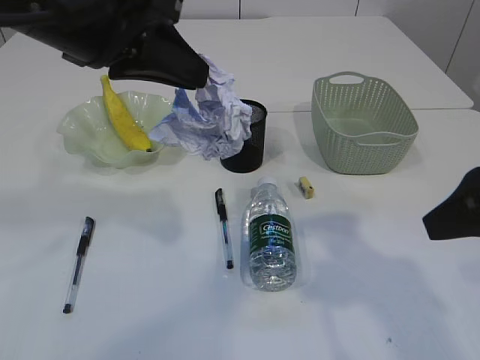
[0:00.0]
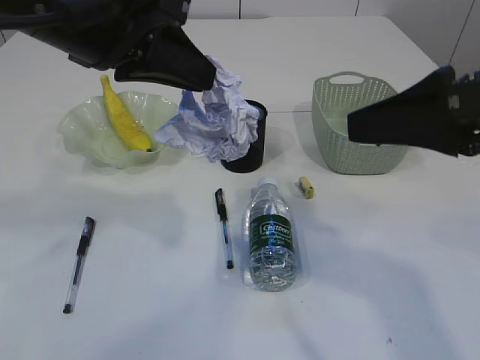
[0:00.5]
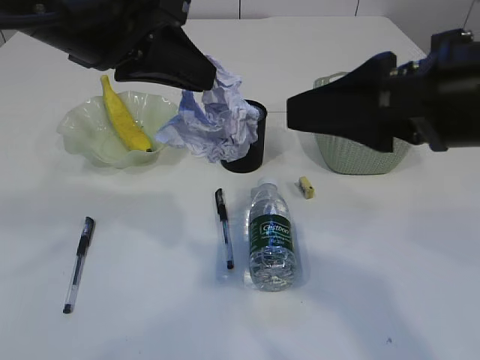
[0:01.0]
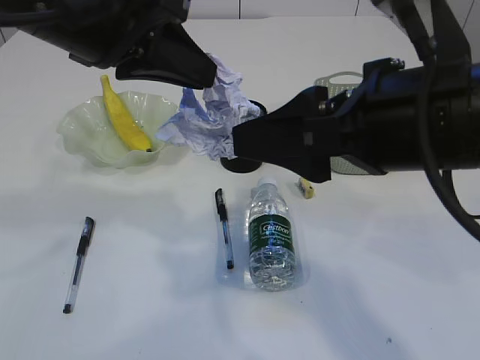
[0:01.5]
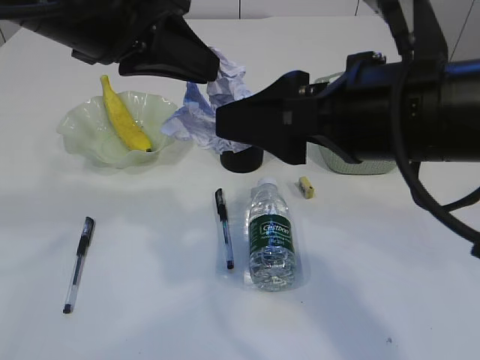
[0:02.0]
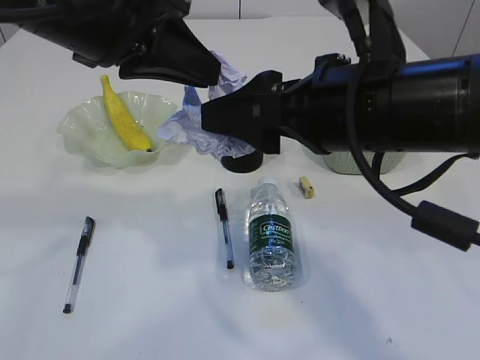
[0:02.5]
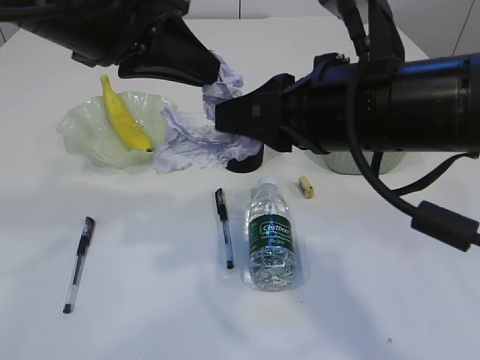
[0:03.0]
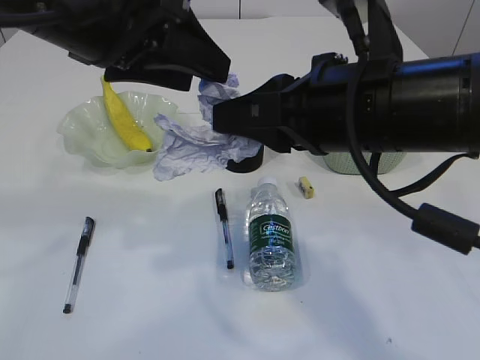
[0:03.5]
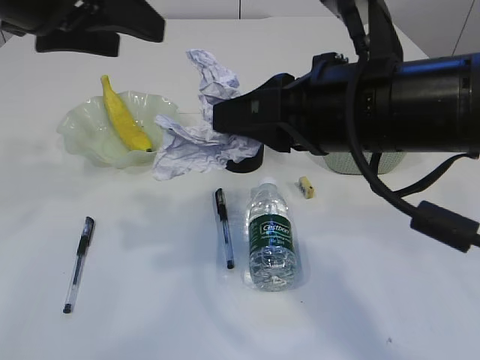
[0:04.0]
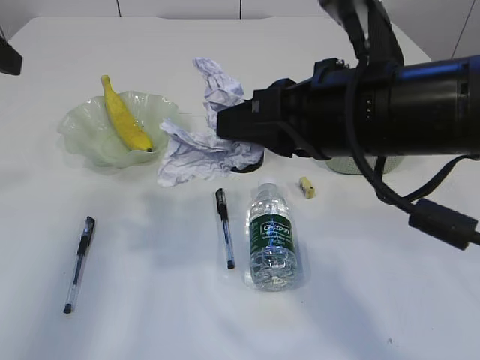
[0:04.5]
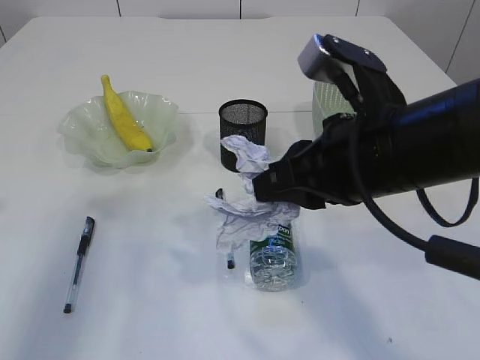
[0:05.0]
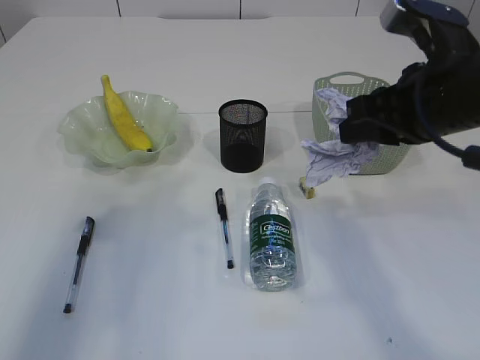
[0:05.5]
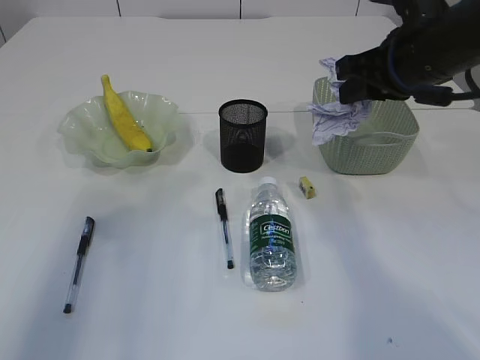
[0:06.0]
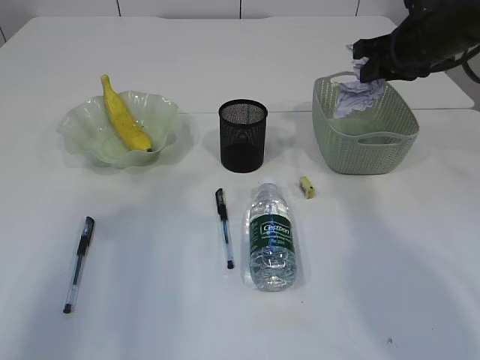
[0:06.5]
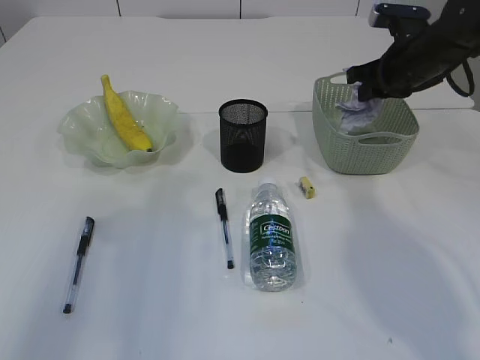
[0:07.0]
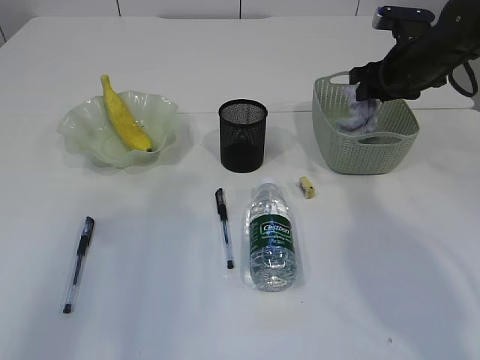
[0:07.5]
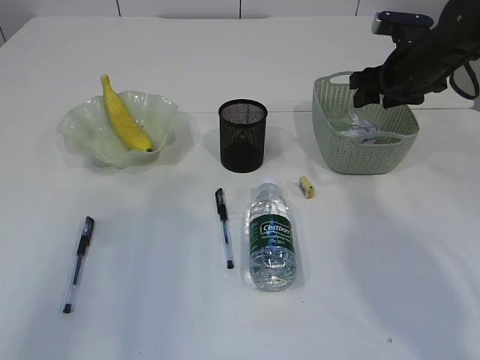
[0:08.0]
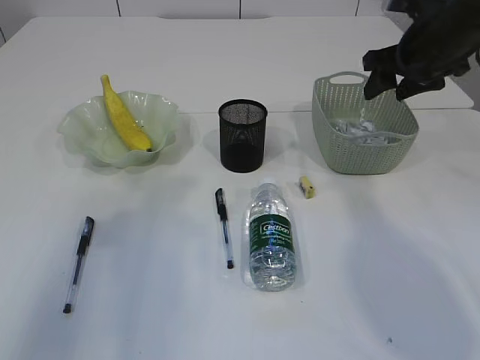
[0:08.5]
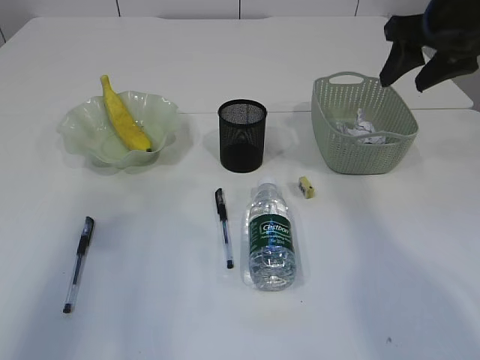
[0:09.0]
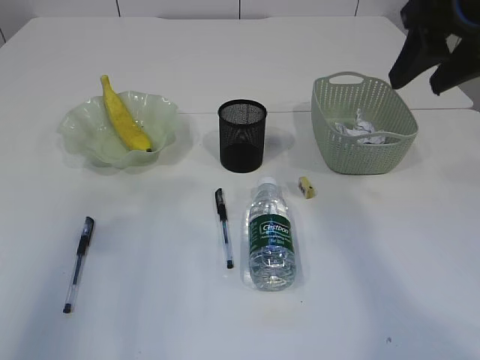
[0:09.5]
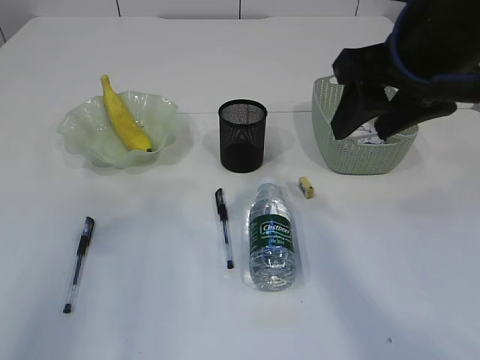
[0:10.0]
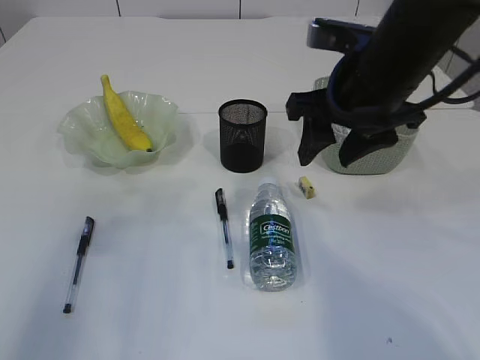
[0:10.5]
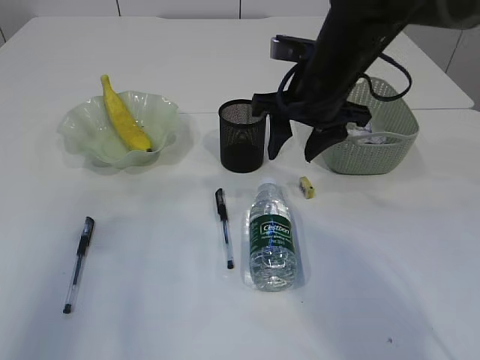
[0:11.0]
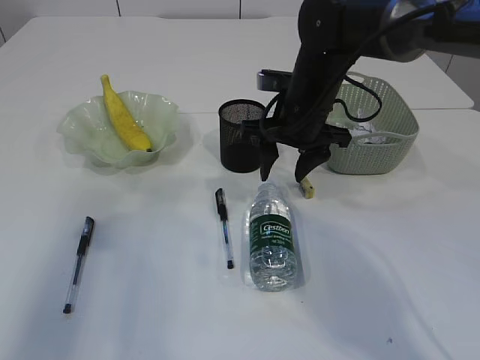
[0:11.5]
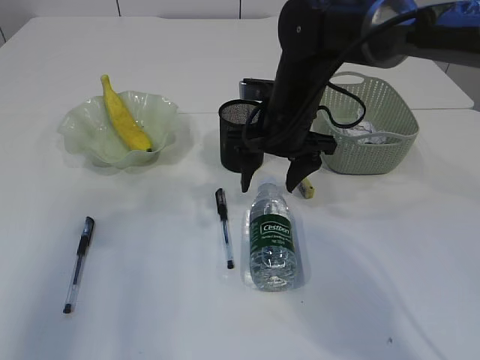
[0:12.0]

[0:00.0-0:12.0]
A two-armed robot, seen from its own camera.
Step, 0:00.0 to 0:04.0: Hand over the waste paper.
Step, 0:04.5 to 0:08.5: Place the waste paper in the basket.
0:00.0 to 0:02.0: The right gripper travels to the left by some 10 cm.
0:02.0 to 0:04.0: The left gripper goes about 5 cm to the left, and opens; the right gripper closes its fingers.
0:04.0 to 0:06.0: The left gripper shifts approximately 15 cm to the left and backward; the right gripper shifts some 15 cm forward and to the right.
0:06.0 to 0:08.0: The right gripper travels forward, downward and to the right by approximately 15 cm, and opens.
0:08.0 to 0:10.0: The right gripper shifts about 25 cm backward, upward and to the left.
0:10.0 to 0:12.0: The right gripper moves downward, forward and to the left, some 20 cm.

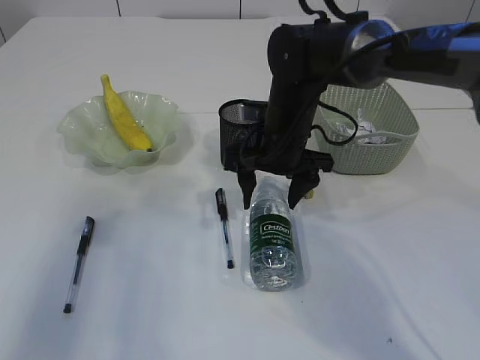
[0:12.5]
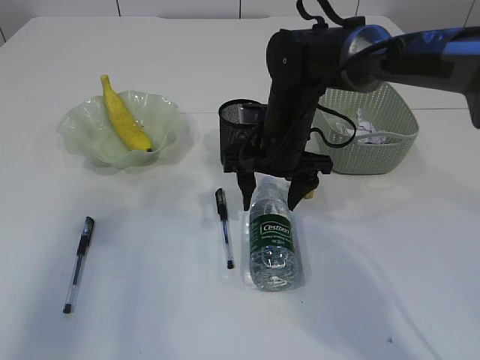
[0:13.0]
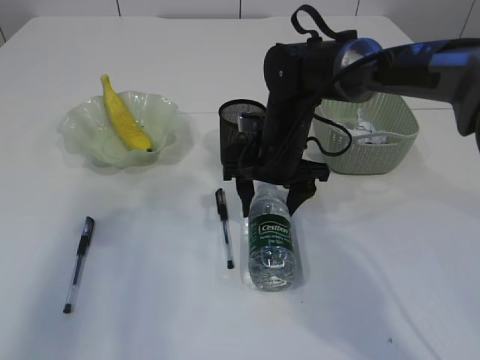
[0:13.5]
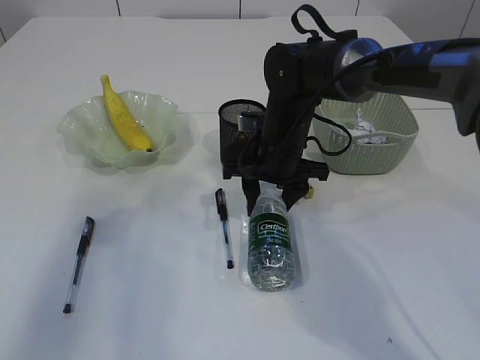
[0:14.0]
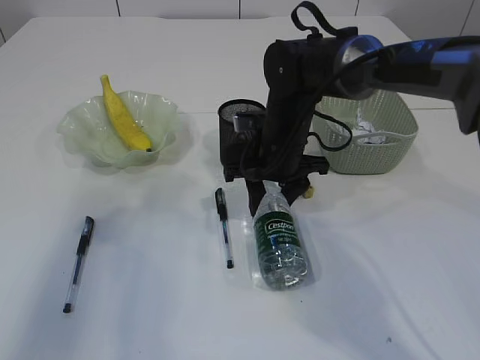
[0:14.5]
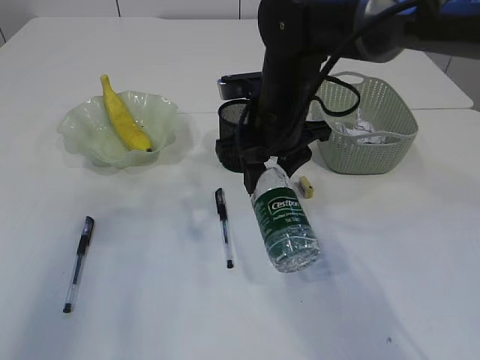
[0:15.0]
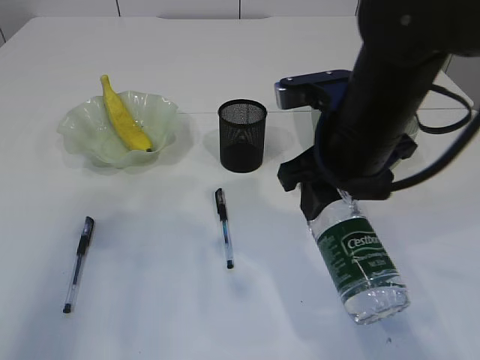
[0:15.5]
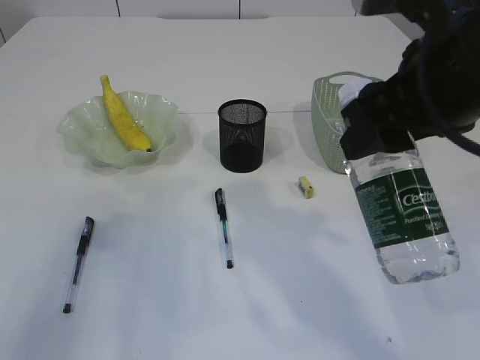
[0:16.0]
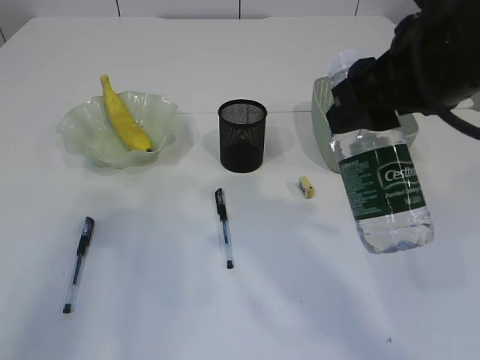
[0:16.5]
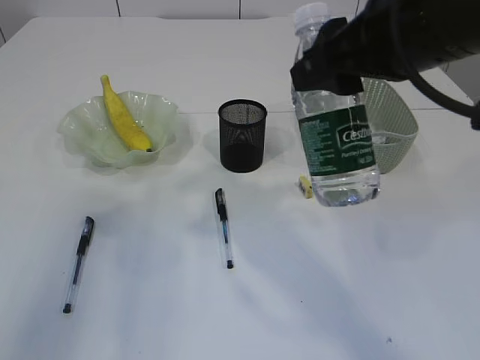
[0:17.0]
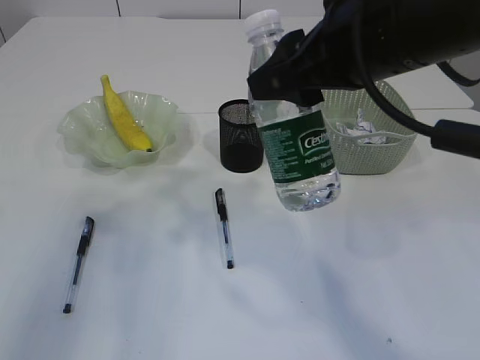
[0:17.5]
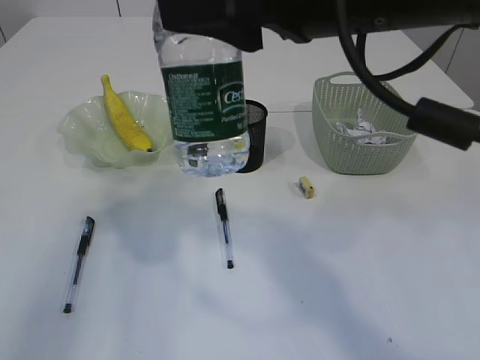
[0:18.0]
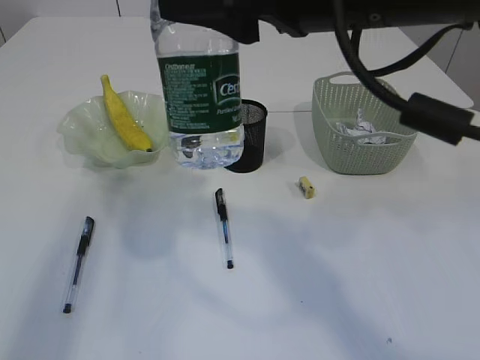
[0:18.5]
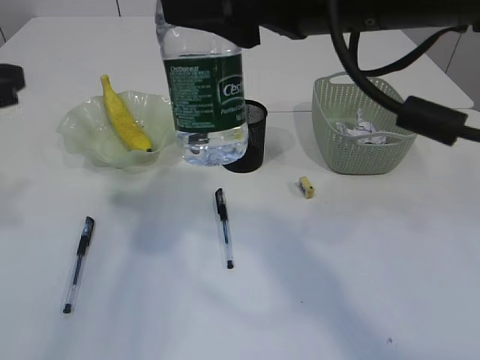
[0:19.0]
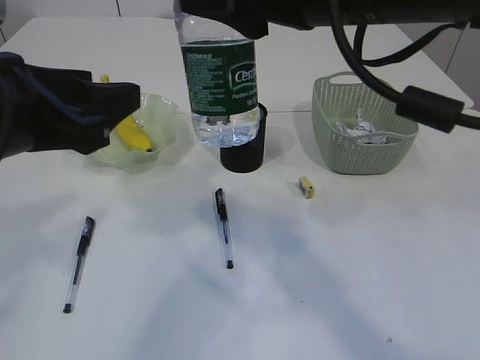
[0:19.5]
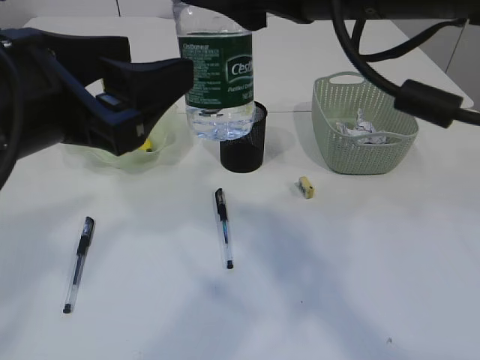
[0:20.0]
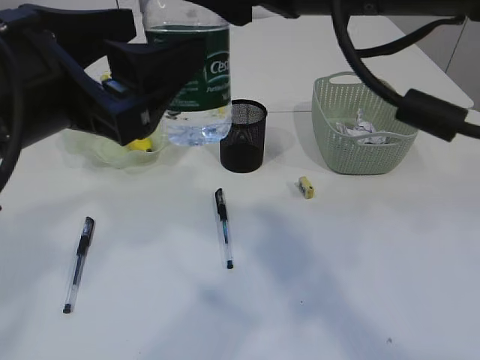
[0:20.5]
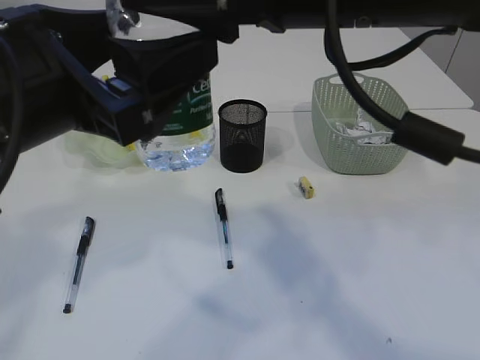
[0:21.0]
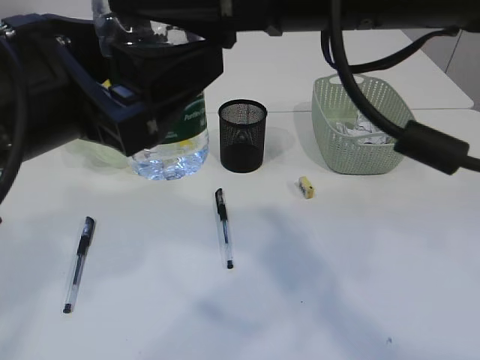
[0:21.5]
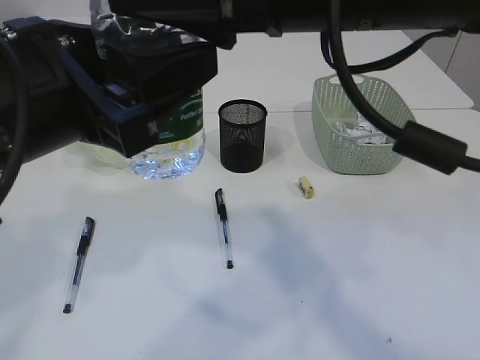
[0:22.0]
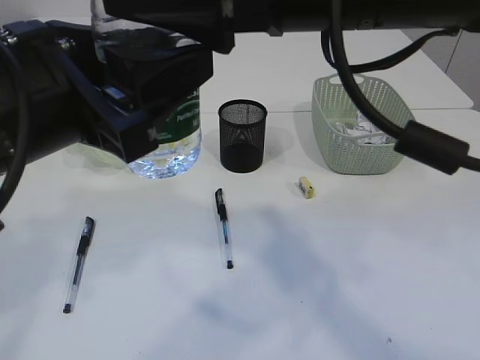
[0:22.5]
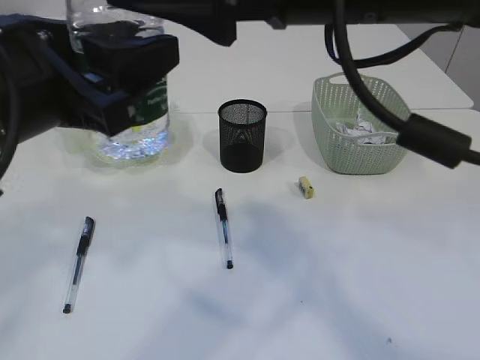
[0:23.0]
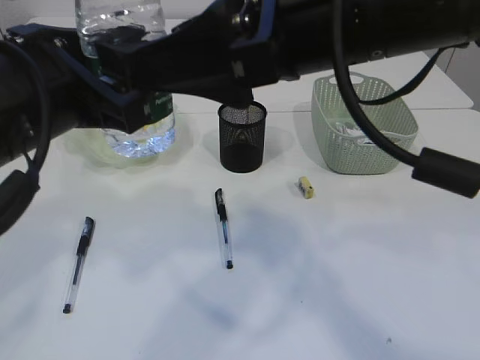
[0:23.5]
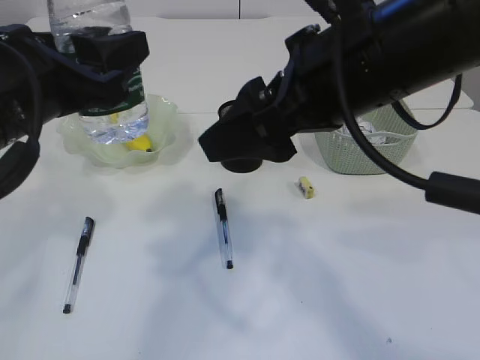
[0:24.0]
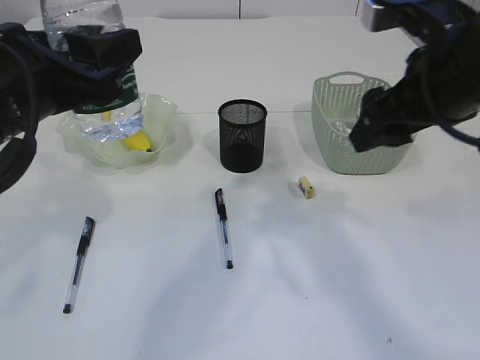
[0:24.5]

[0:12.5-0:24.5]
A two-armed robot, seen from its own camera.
Step, 0:12.5 to 0:15.5: Pick up the bottle with the right arm.
Step, 0:16.0 to 0:23.5: transfer the bottle to the left arm.
0:12.5 to 0:14.5: The right gripper closes.
0:14.5 to 0:16.5: The right gripper shifts roughly 25 cm upward, backward and to the right.
0:16.5 to 0:18.5: The right gripper is displaced to the left by roughly 5 cm.
0:18.5 to 0:20.5: The left gripper shifts some 20 cm to the right and backward, and opens its fingers.
0:20.5 to 0:22.5: The grippers stay close to where they were, moving slightly.
0:22.5 to 0:24.5: The right gripper goes about 15 cm to the right and downward. Meanwhile the left gripper heads forward, covering some 5 cm.

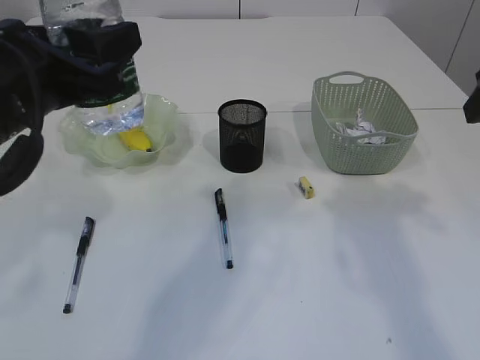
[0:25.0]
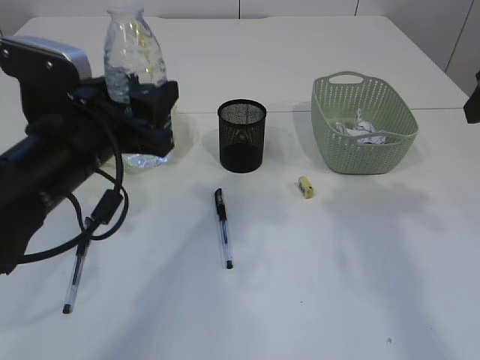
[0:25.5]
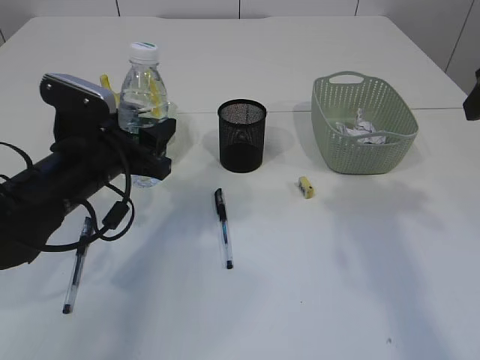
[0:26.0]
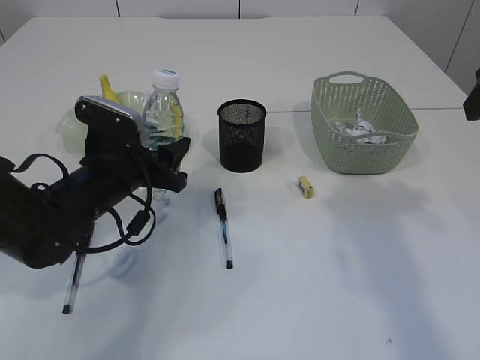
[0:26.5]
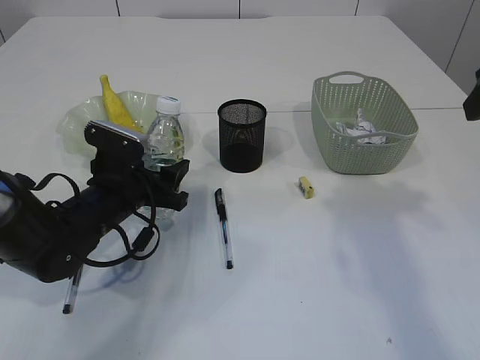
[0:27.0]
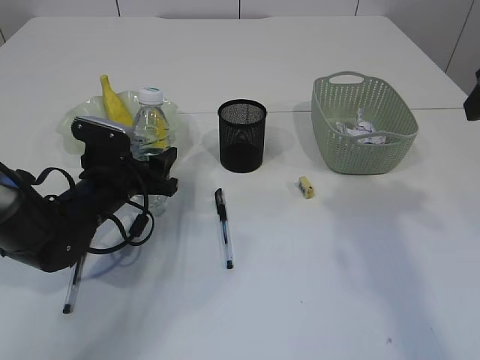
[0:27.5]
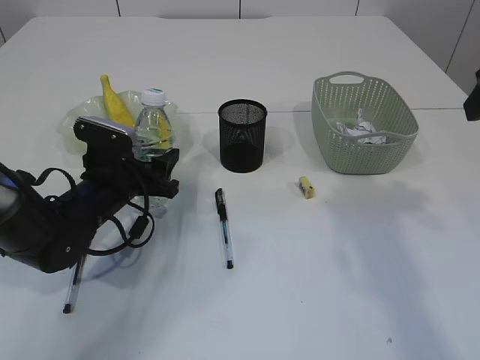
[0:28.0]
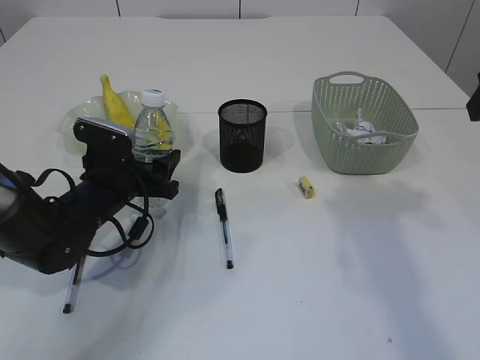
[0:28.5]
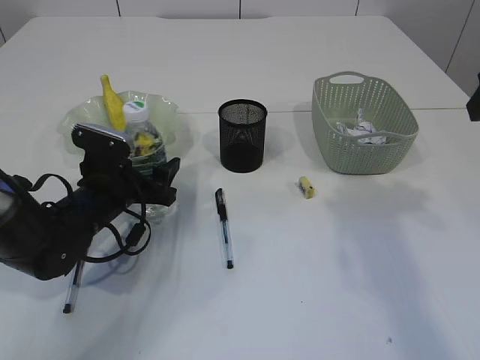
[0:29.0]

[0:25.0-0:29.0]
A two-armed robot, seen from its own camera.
0:25.0 to 0:27.0: The left gripper is displaced downward and forward by some 25 cm.
0:27.0 to 0:29.0: The grippers make only small movements.
